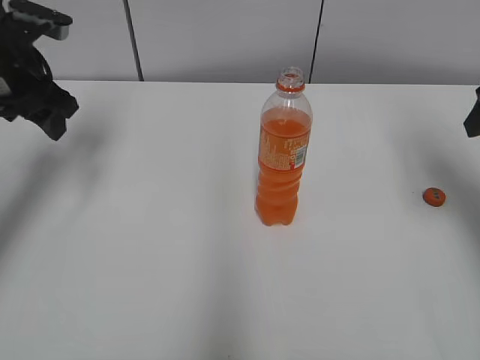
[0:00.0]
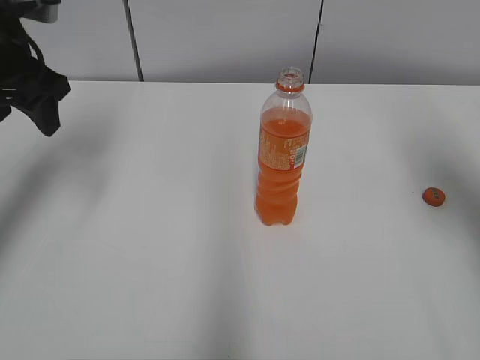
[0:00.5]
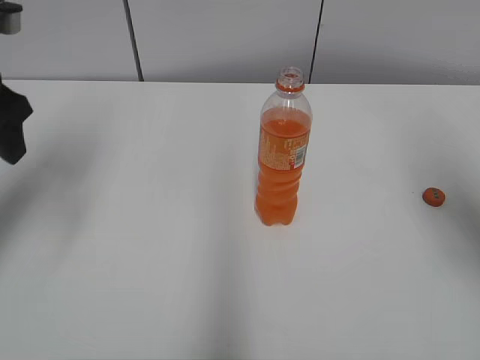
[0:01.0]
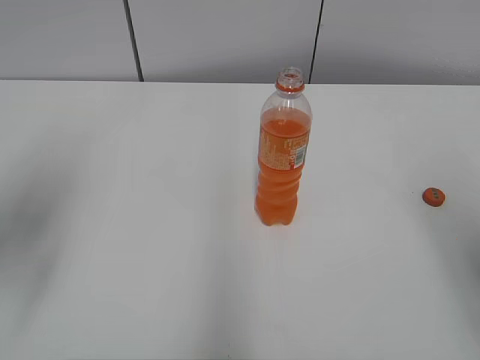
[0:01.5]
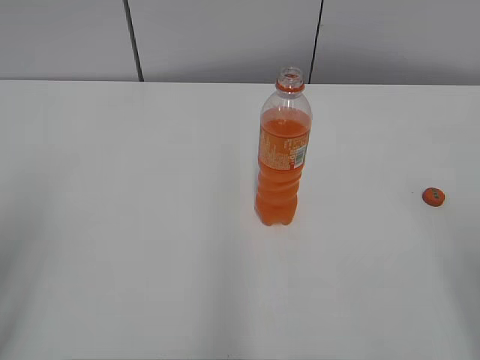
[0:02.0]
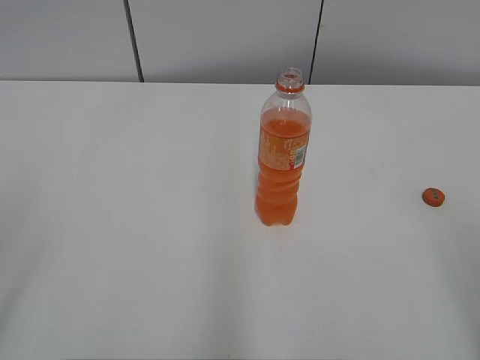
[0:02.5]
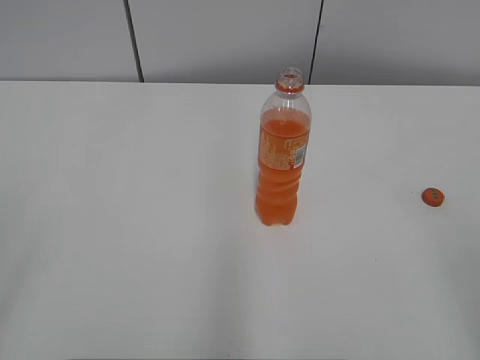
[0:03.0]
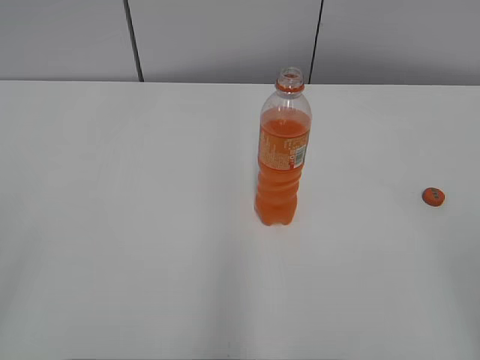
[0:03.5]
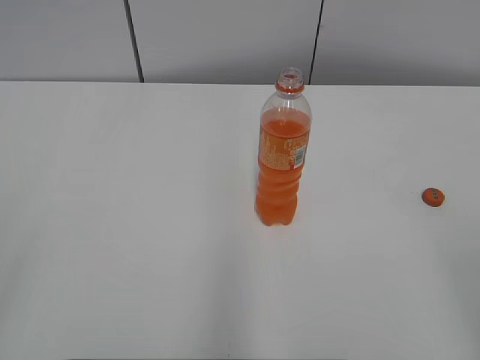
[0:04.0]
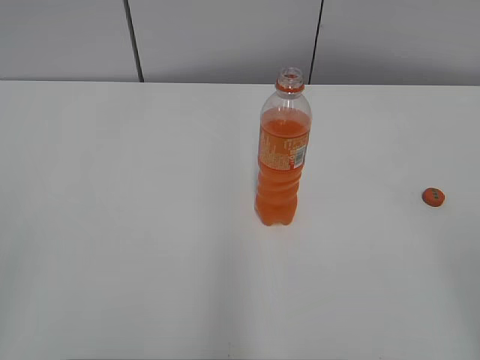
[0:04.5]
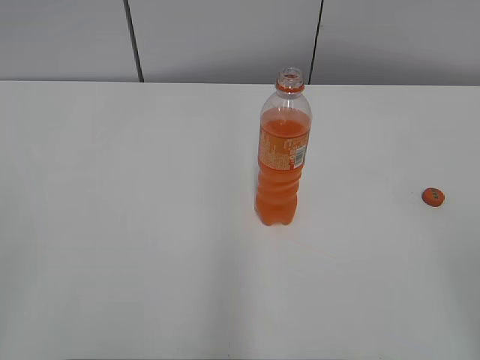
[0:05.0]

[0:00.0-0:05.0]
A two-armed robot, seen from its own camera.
0:00.0 to 0:02.5: Both grippers move backward, approximately 30 cm.
